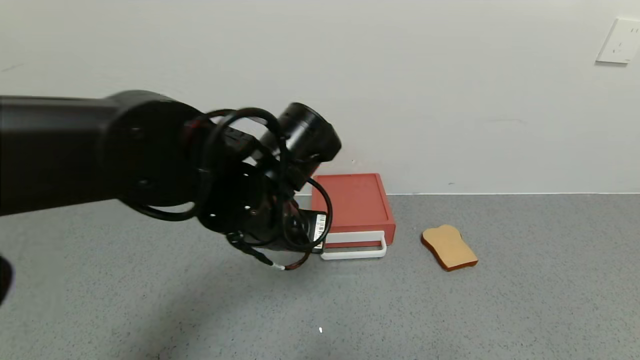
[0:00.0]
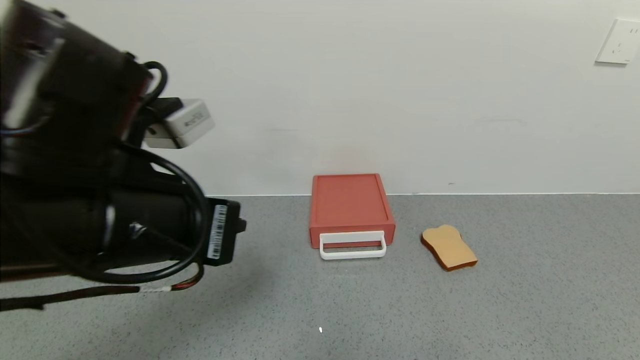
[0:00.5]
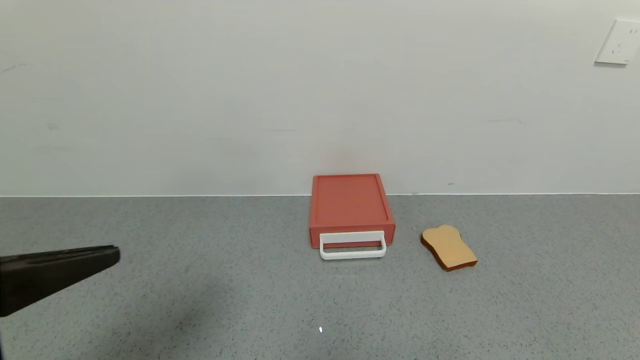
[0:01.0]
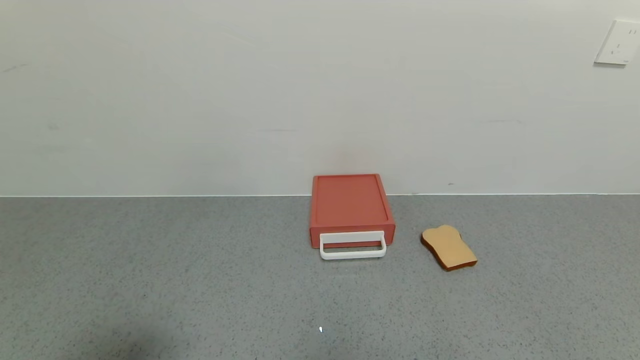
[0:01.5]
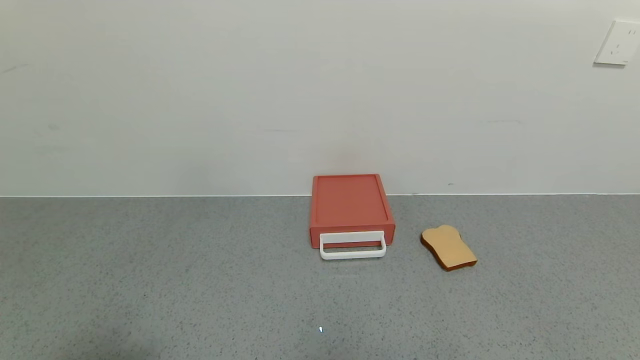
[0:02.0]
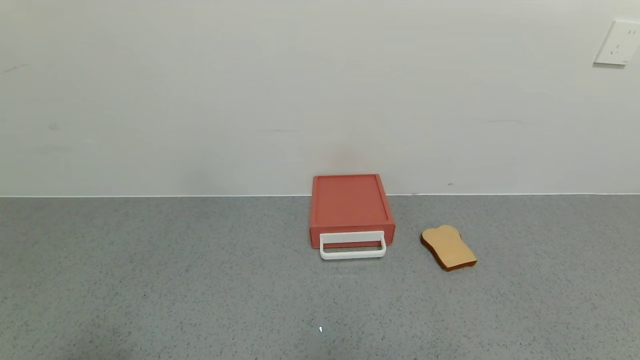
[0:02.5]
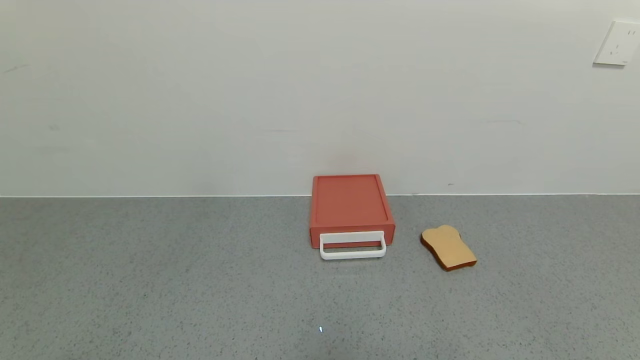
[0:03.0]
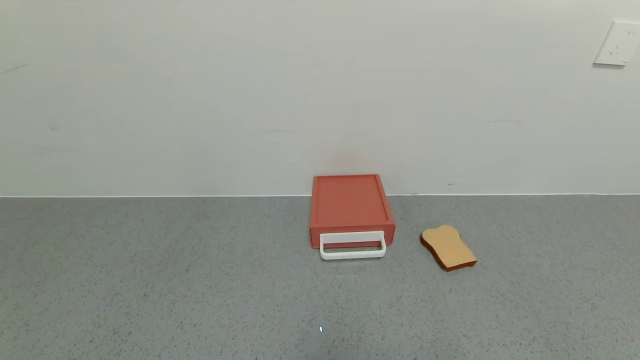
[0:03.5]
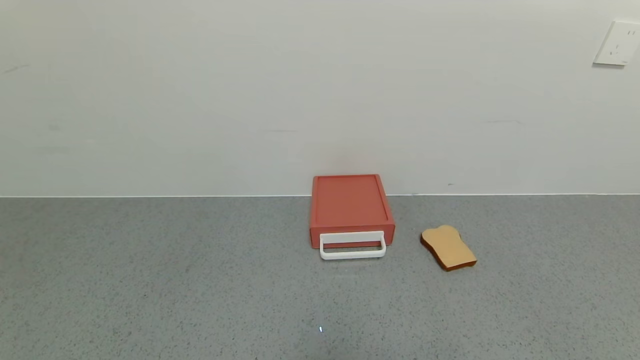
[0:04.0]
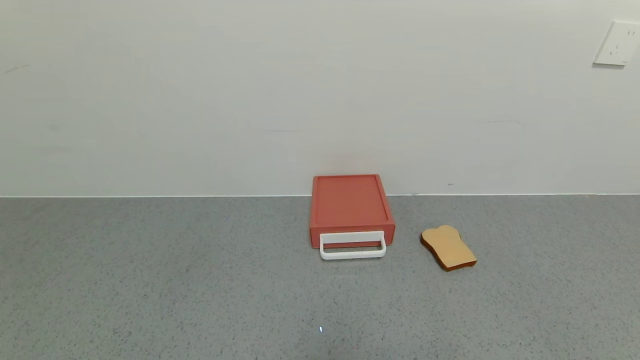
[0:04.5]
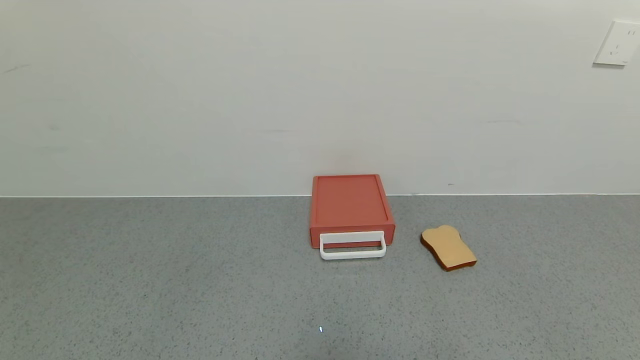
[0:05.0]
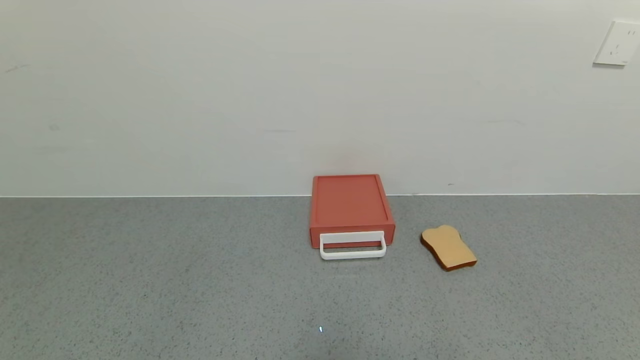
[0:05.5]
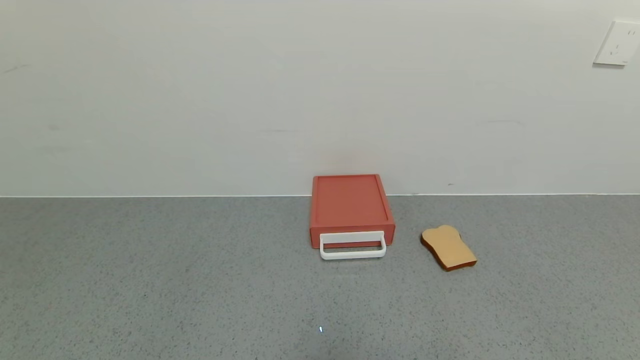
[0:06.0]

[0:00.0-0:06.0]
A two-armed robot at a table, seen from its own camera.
Task of the whole recording: use the gripper to open the drawer and close the red drawer.
0:00.0 to 0:02.0: The left gripper heads backward and to the left, covering some 35 cm, and opens.

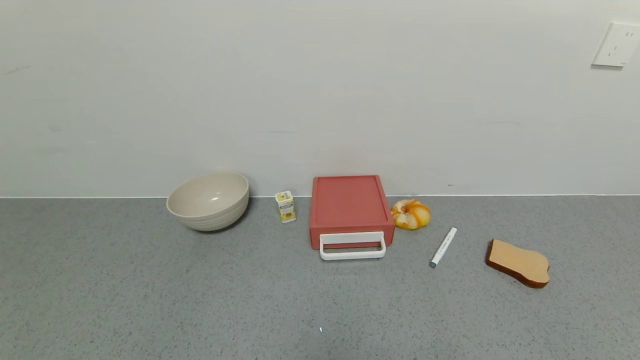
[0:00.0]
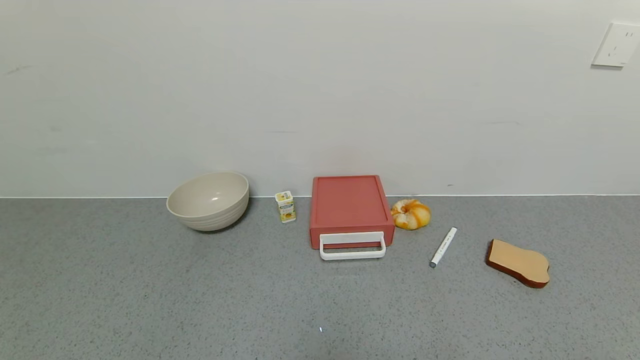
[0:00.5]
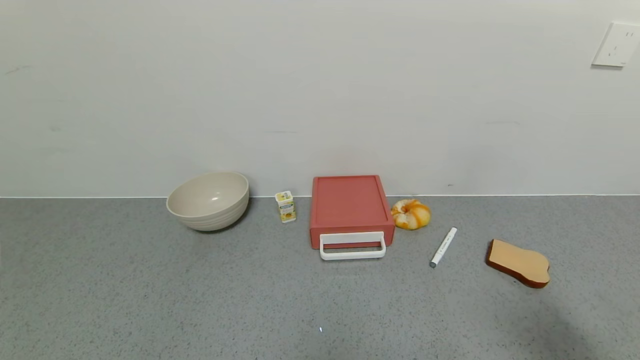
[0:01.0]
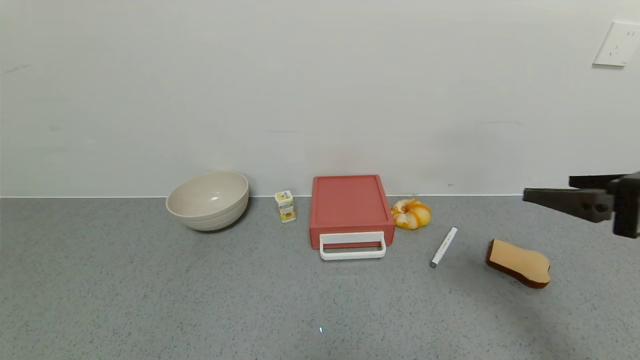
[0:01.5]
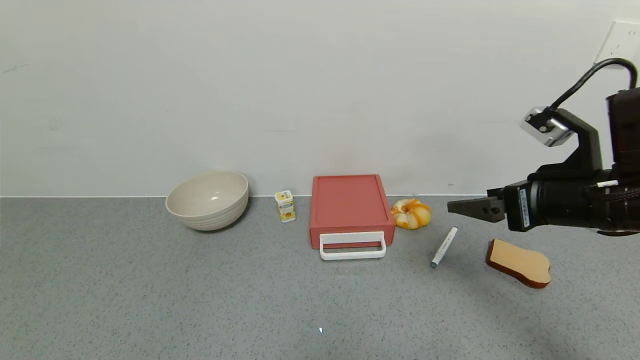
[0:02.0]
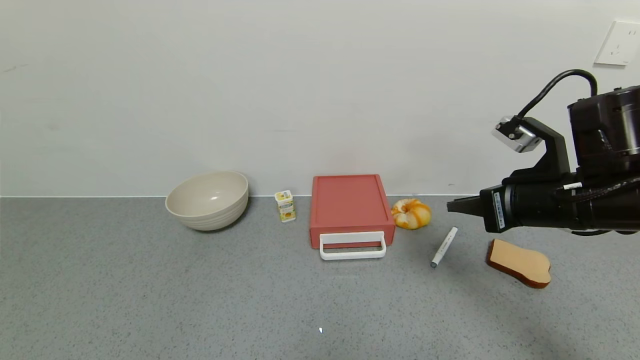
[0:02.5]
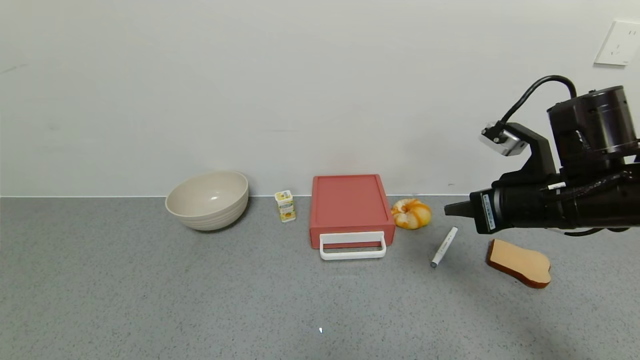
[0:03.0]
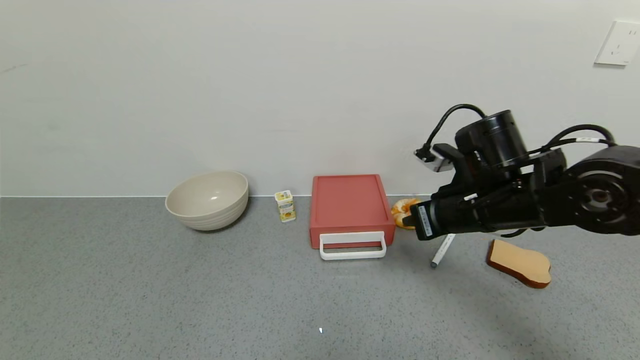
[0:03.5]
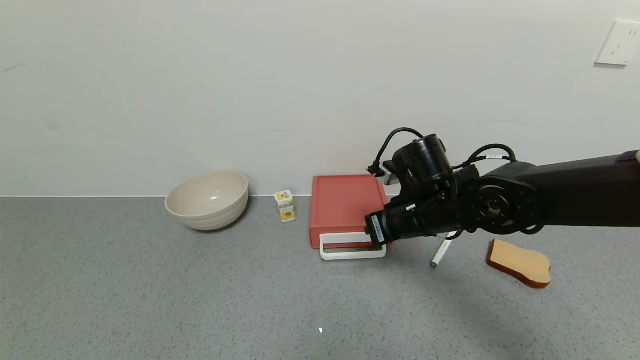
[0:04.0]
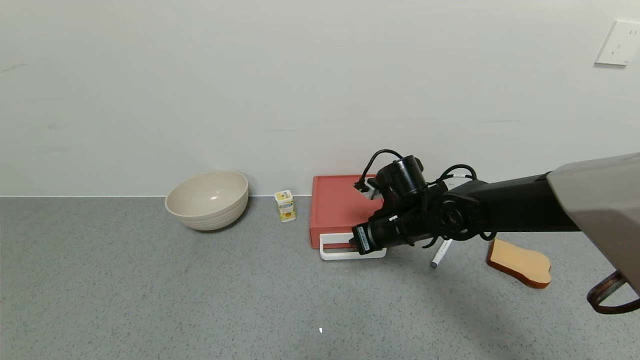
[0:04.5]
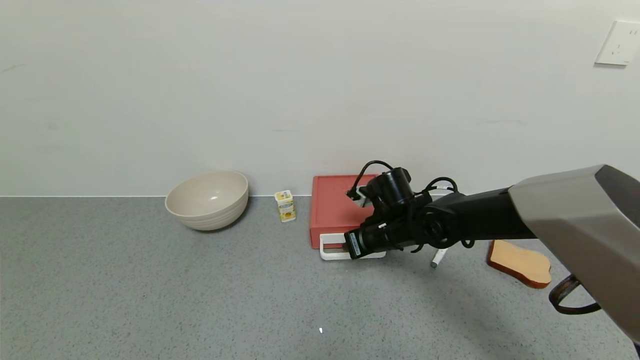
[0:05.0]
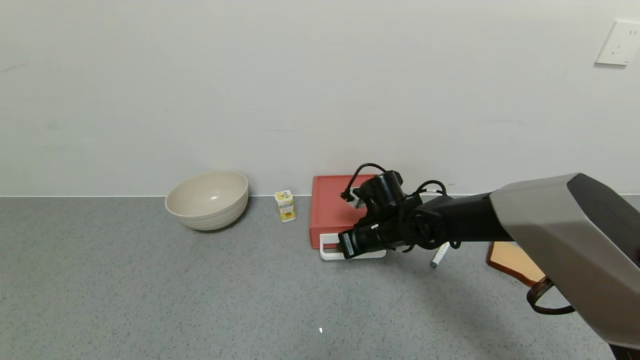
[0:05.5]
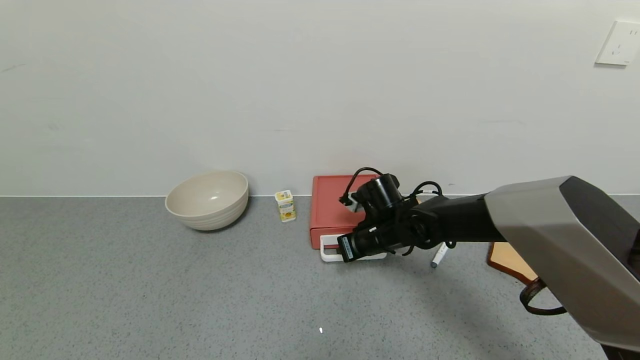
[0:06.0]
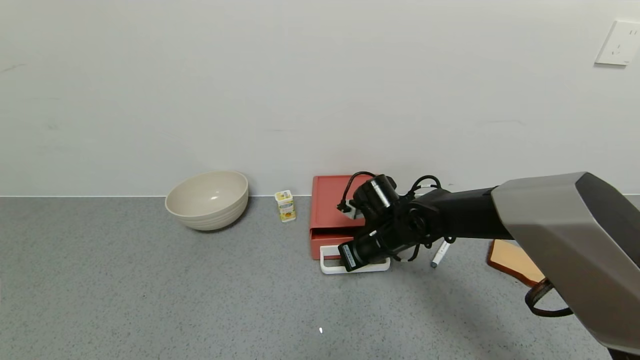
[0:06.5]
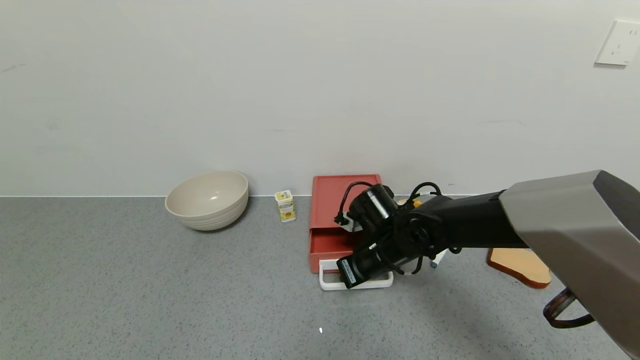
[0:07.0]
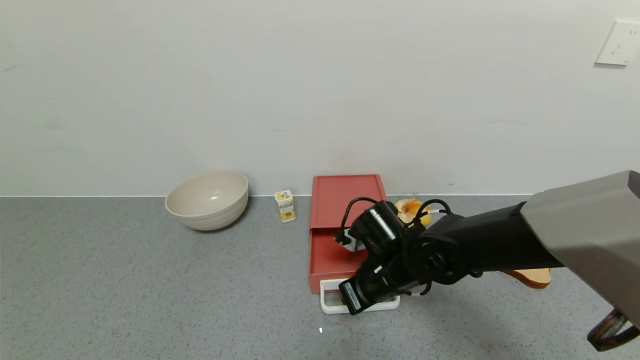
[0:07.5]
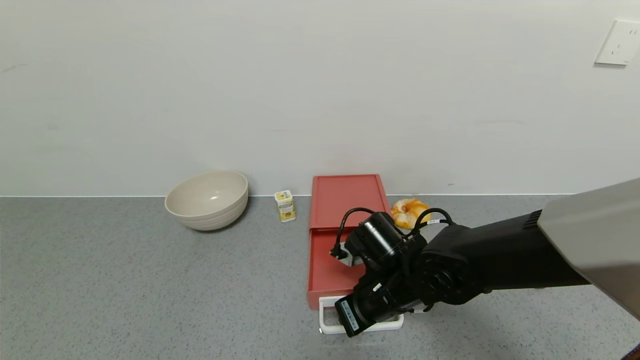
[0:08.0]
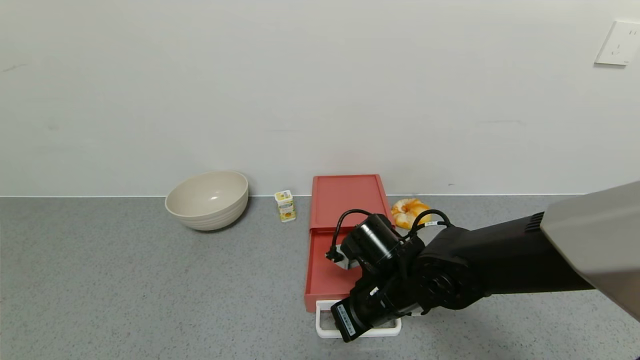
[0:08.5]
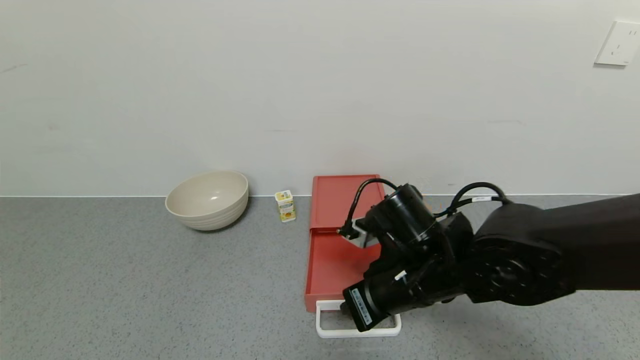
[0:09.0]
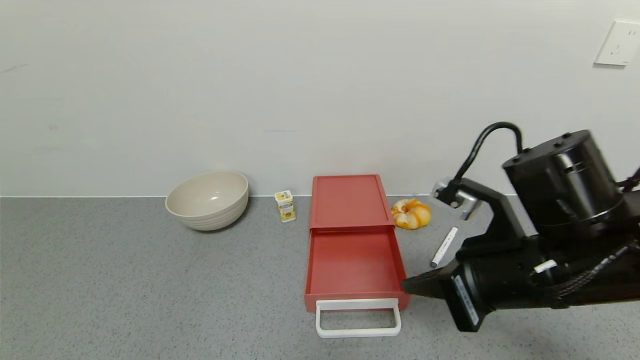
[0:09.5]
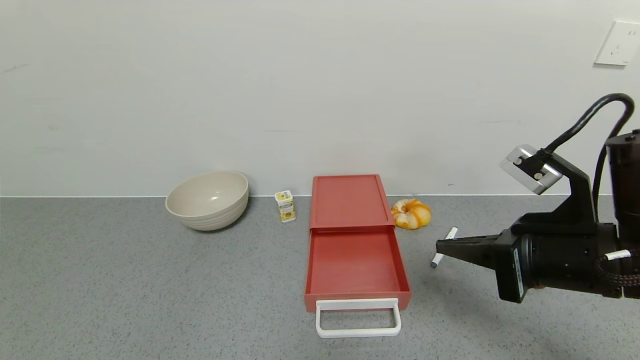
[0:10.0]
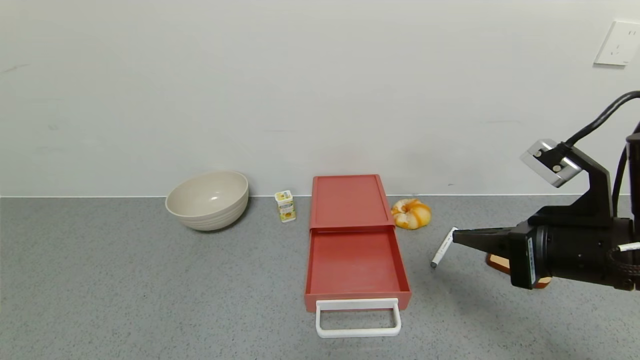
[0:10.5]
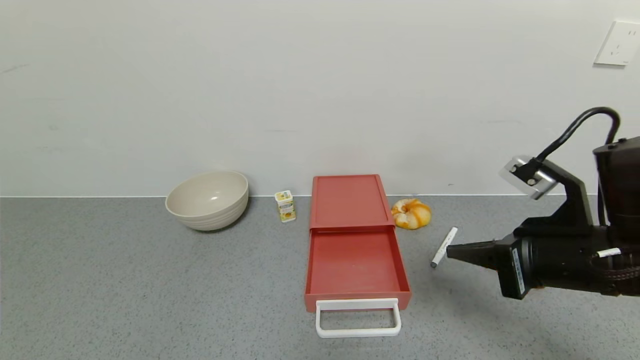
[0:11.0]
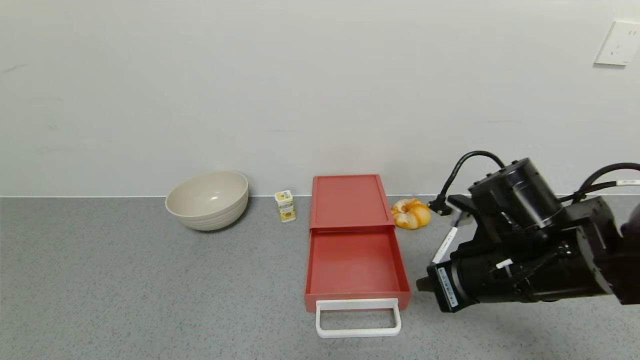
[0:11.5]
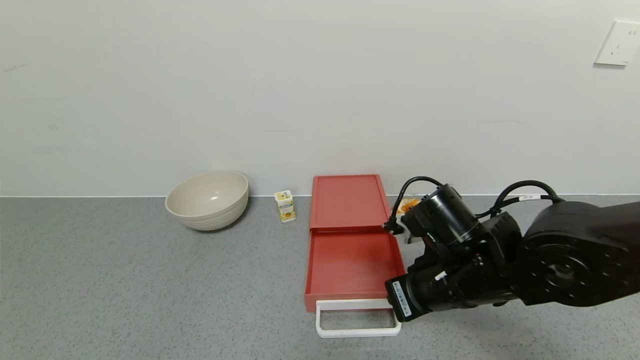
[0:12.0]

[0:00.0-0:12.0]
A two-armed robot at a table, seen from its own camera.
Task of the whole recording: use the gripper to open the drawer and close the red drawer.
Step, 0:00.0 to 0:08.5: Open the red drawer with right gripper.
0:00.0 to 0:02.0: The right gripper travels forward and upward by about 35 cm.
0:02.0 to 0:04.0: The right gripper goes about 20 cm to the left, forward and downward, and closes its fingers.
0:04.0 to 0:06.0: The right gripper shifts roughly 10 cm downward and forward.
0:06.0 to 0:08.0: The right gripper heads backward, covering approximately 10 cm.
0:08.0 to 0:10.0: The right gripper is displaced to the right, upward and backward by about 20 cm.
0:10.0 to 0:12.0: The right gripper goes approximately 15 cm to the left, downward and forward.

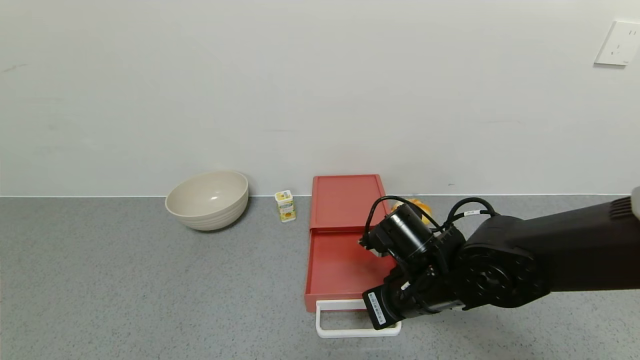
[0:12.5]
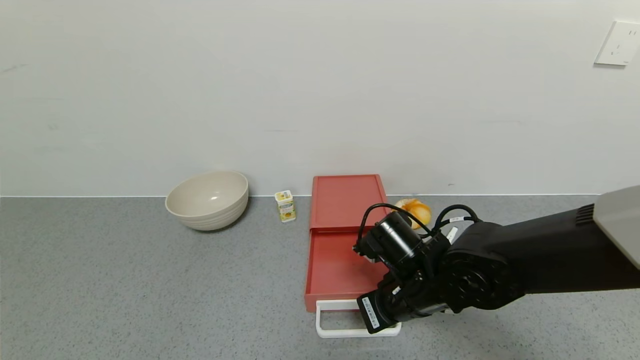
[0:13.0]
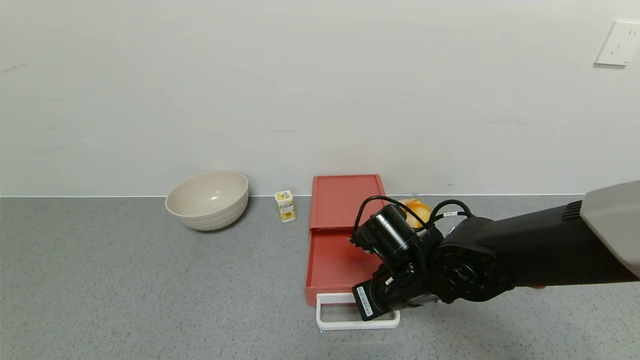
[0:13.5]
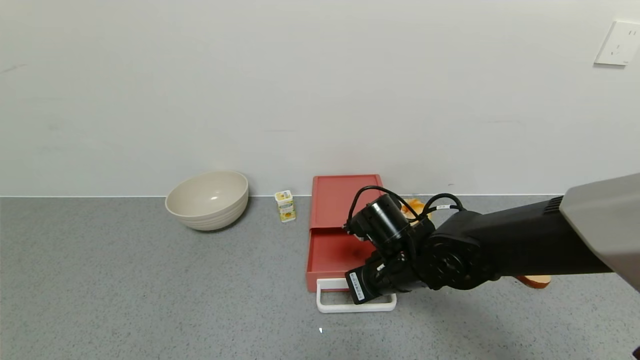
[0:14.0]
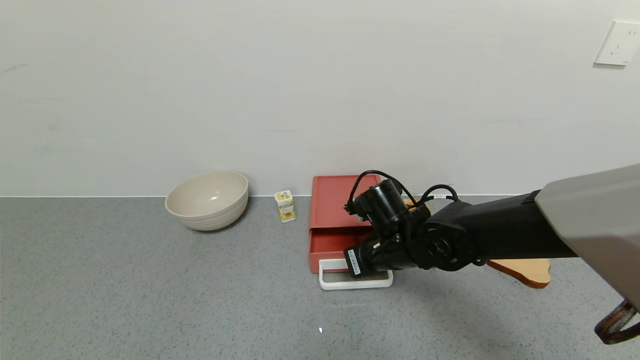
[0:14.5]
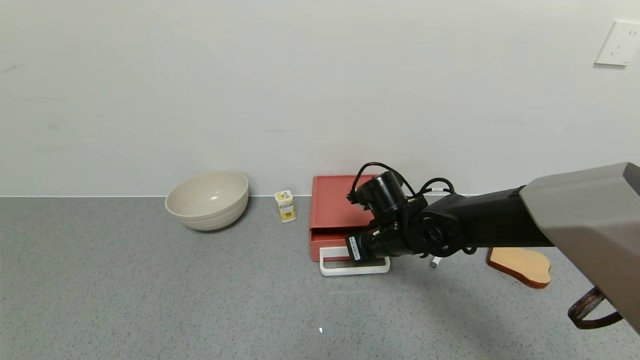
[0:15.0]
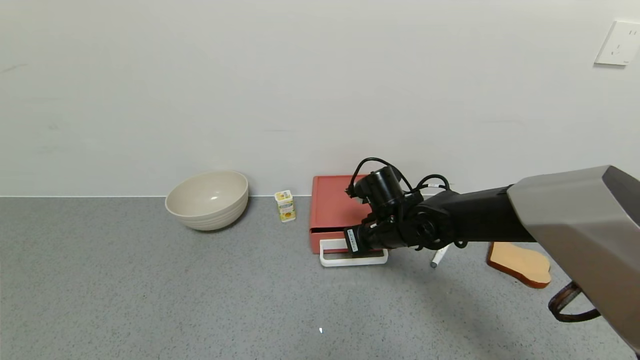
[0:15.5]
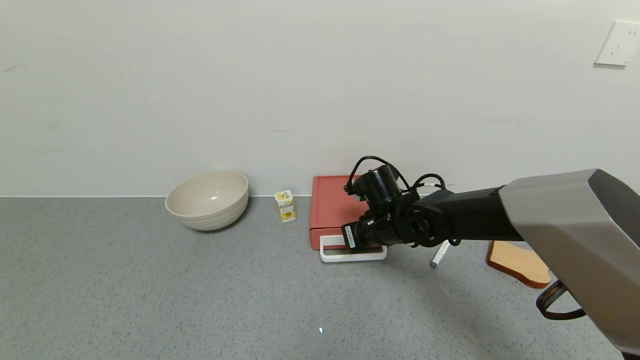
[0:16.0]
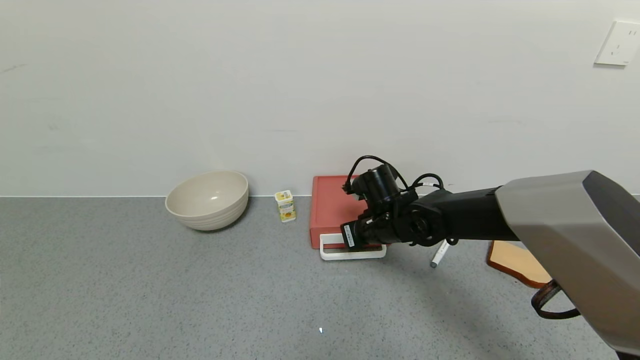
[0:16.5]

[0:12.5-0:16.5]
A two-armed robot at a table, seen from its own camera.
Task of the whole recording: use the gripper to open the drawer and close the red drawer.
0:12.5 to 0:14.5: The right gripper goes about 5 cm forward.
0:14.5 to 0:16.5: The right gripper shifts roughly 5 cm forward.
